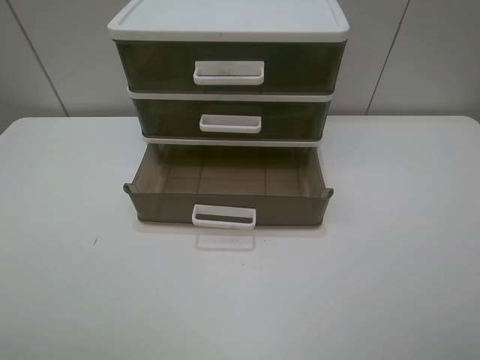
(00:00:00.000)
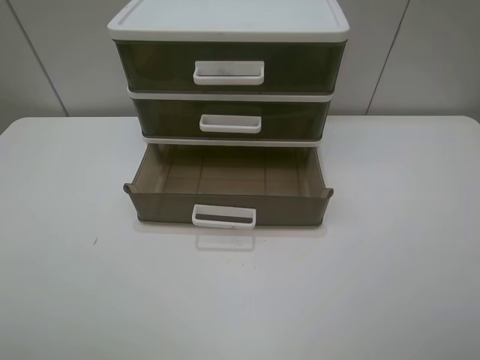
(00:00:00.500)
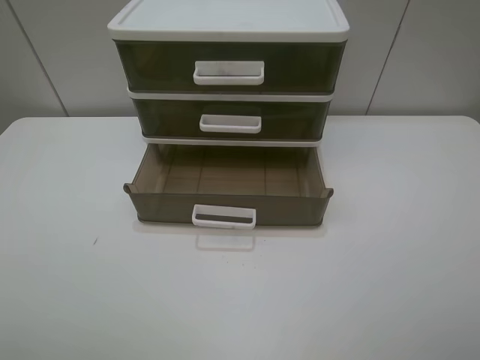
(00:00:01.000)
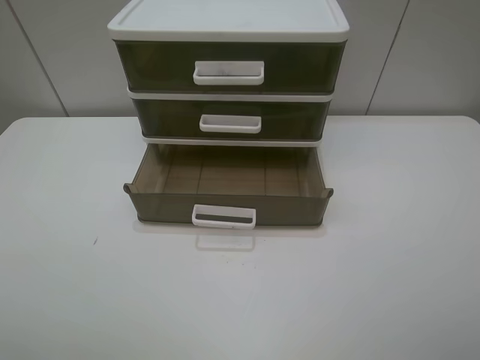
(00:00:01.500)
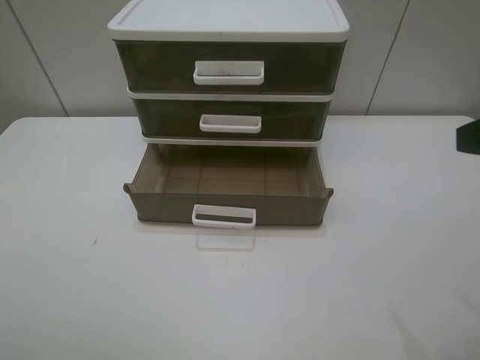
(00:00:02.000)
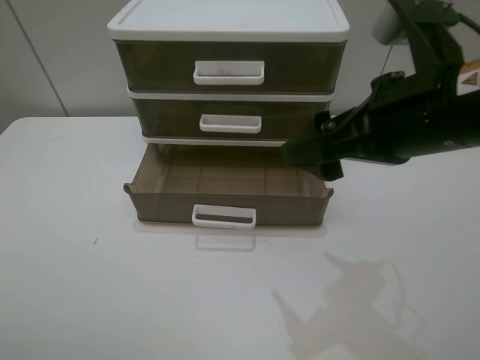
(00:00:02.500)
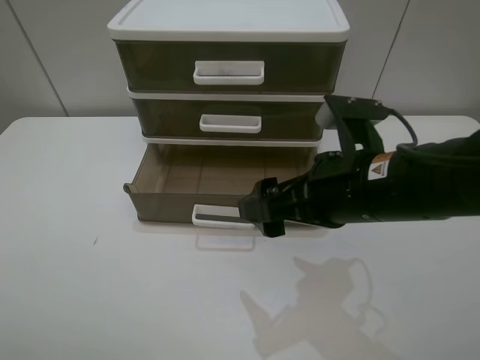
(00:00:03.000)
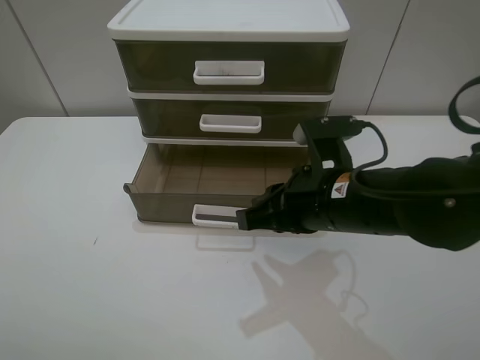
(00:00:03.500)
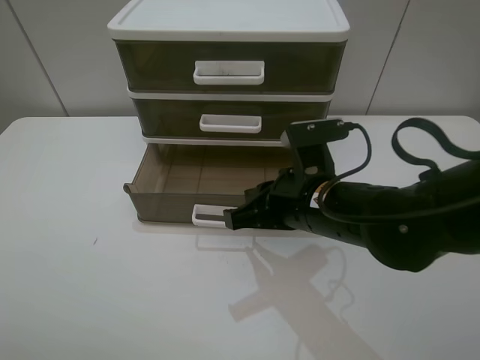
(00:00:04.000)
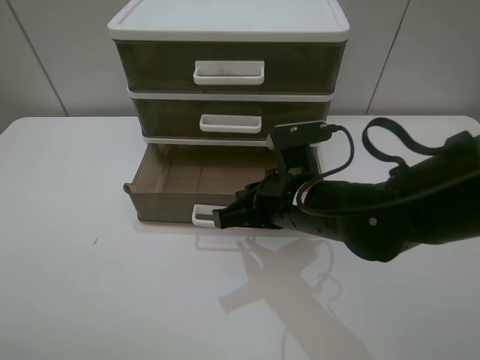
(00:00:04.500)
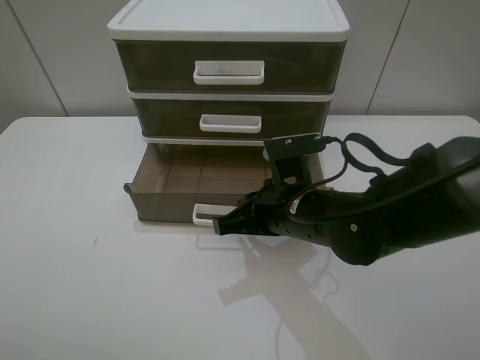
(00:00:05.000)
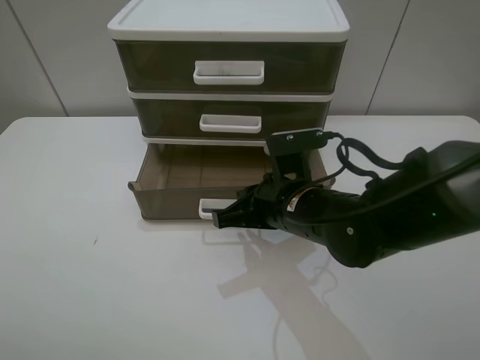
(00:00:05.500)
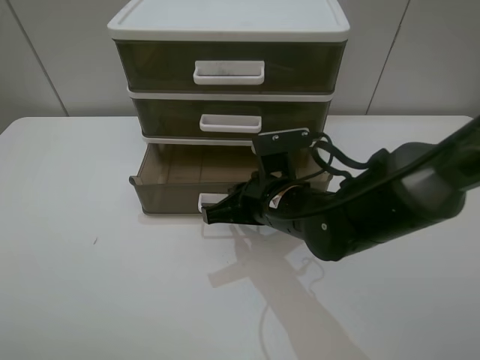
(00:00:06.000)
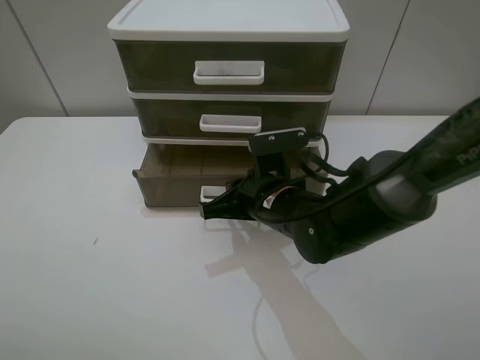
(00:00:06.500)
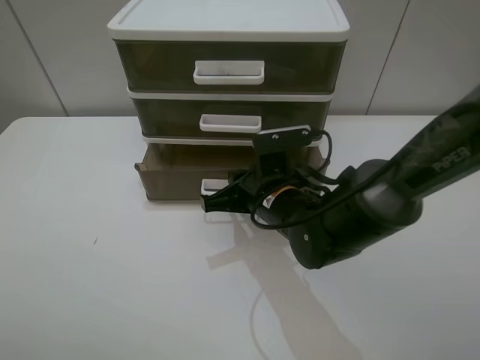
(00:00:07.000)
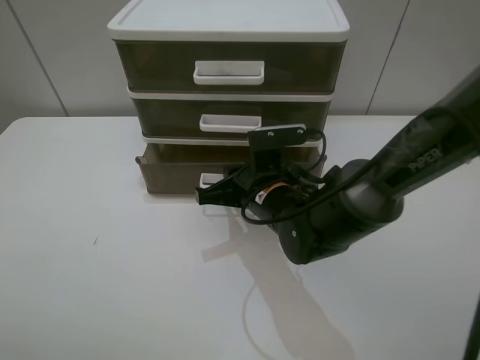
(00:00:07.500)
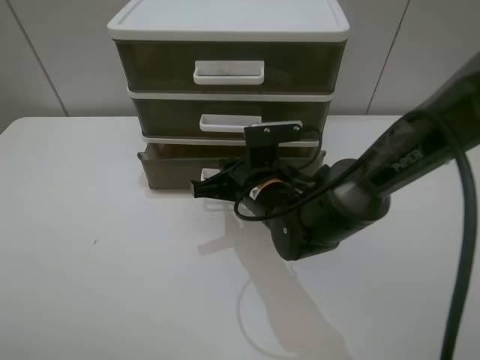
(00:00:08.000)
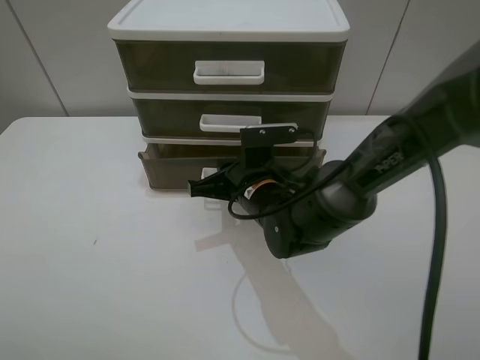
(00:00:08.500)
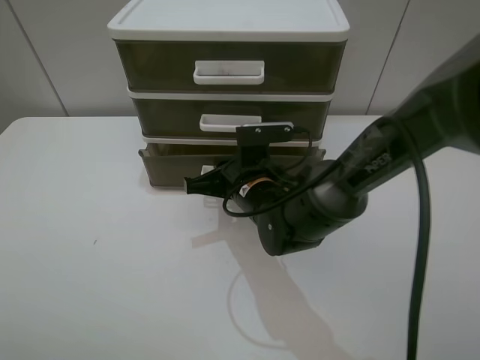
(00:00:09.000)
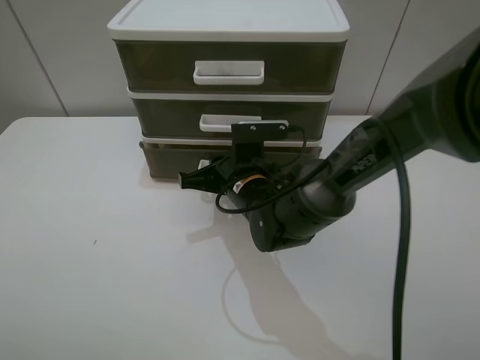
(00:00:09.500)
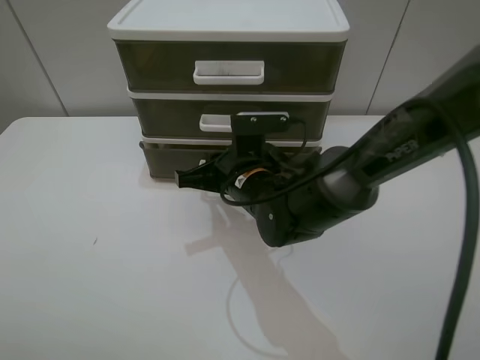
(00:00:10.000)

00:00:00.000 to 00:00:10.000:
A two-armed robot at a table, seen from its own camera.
Task of the whole recording: close the bottom drawer.
Step, 00:00:00.000 to 00:00:05.000: Use the right gripper to contact the bottom layer of the storage cabinet.
Step, 00:00:05.500 to 00:00:09.500: Push the bottom drawer closed.
00:00:02.000 to 00:00:04.000: The right gripper heads to the left, downward and forward, covering roughly 25 cm, and closes up.
00:00:04.000 to 00:00:06.000: The right gripper ends up approximately 5 cm from where it was.
00:00:06.000 to 00:00:08.000: The grippers move only a little.
00:00:08.000 to 00:00:10.000: The grippers move only a little.

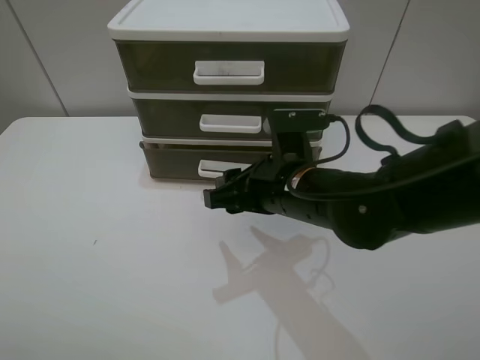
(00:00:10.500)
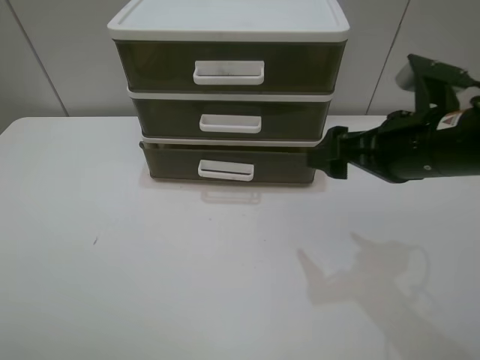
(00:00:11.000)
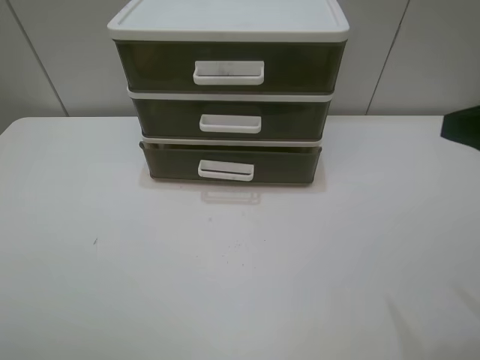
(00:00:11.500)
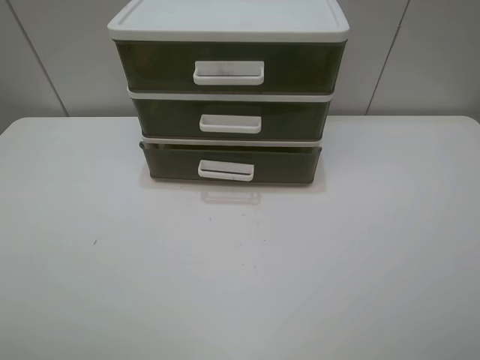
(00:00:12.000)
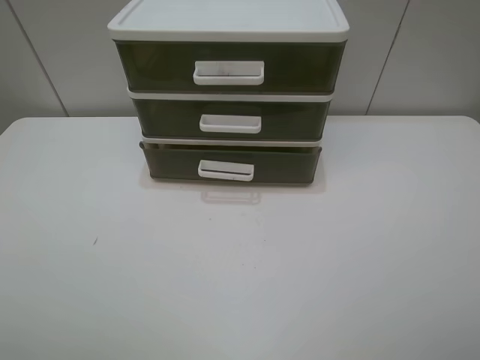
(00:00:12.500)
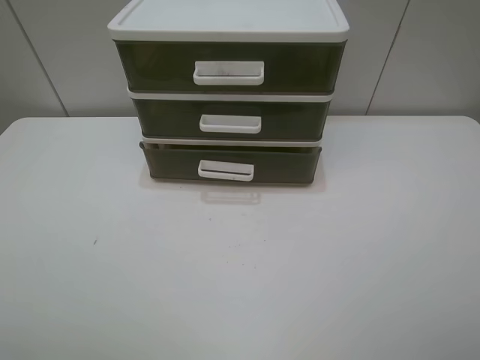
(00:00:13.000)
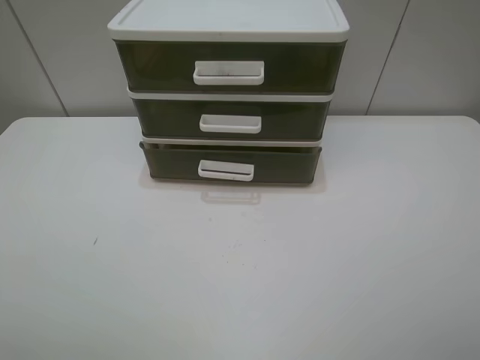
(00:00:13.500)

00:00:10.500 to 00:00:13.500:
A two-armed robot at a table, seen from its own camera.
Task of the whole recording: close the bottom drawer.
00:00:10.500 to 00:00:12.000: The right gripper is displaced to the right, backward and upward by approximately 35 cm, and opens.
